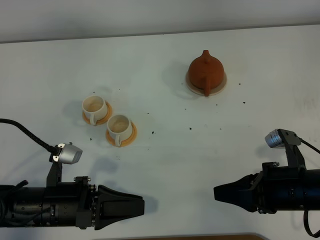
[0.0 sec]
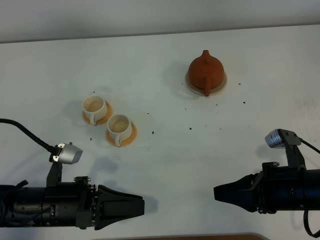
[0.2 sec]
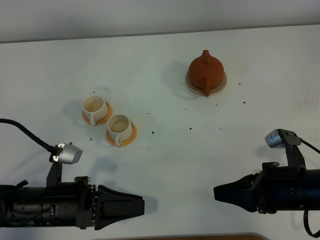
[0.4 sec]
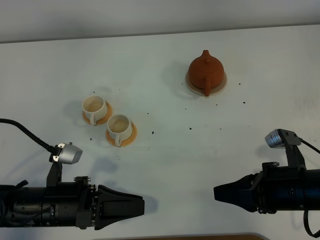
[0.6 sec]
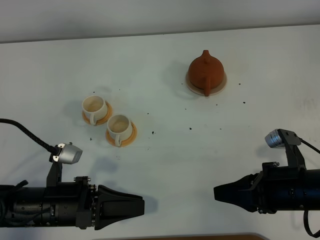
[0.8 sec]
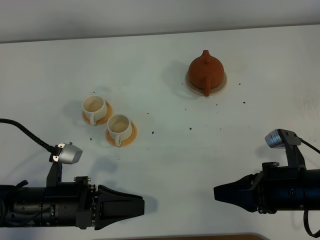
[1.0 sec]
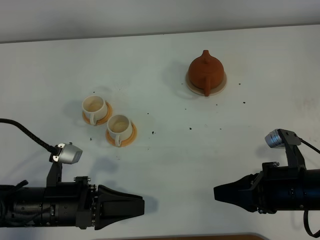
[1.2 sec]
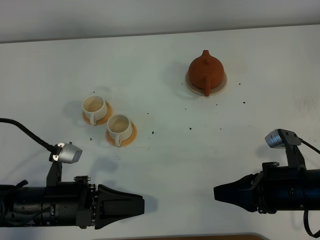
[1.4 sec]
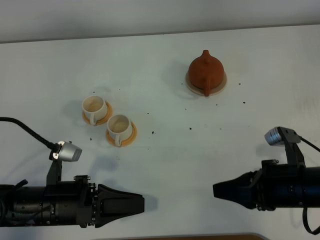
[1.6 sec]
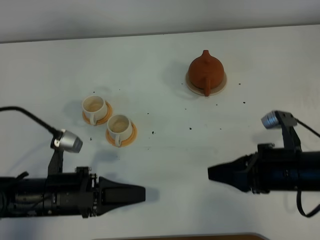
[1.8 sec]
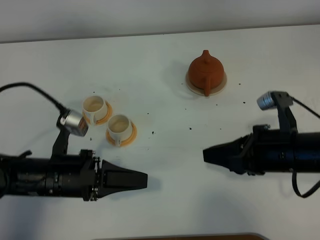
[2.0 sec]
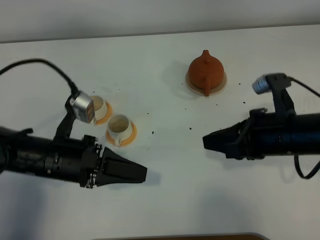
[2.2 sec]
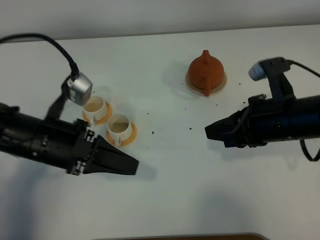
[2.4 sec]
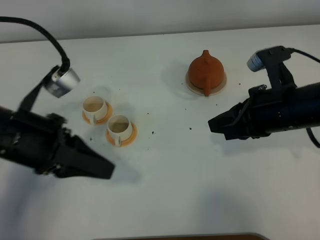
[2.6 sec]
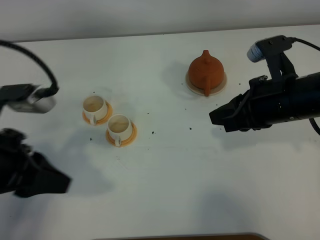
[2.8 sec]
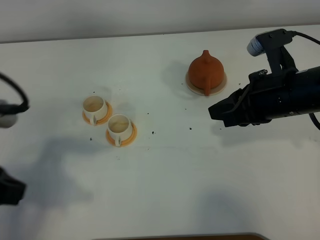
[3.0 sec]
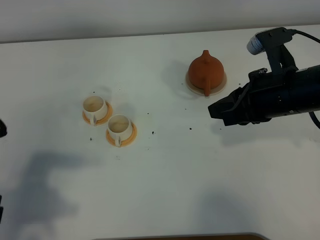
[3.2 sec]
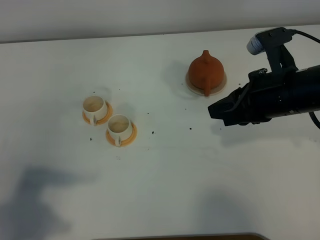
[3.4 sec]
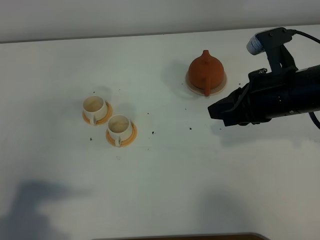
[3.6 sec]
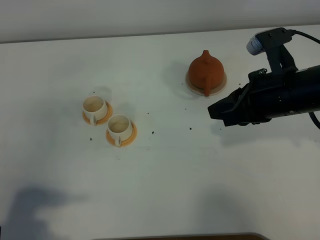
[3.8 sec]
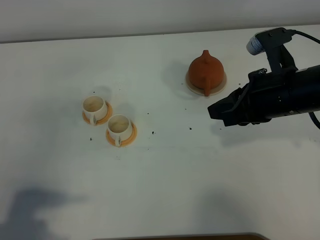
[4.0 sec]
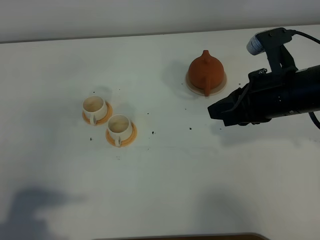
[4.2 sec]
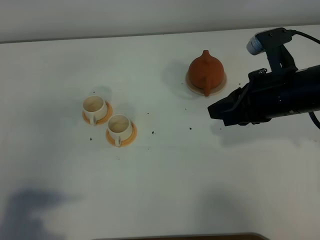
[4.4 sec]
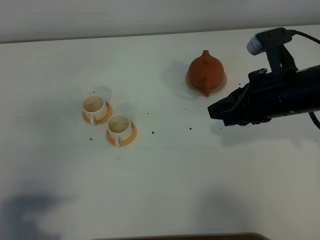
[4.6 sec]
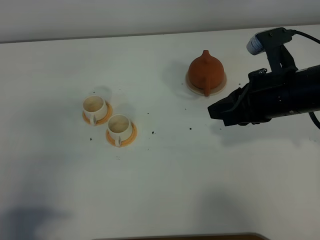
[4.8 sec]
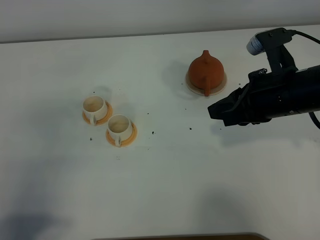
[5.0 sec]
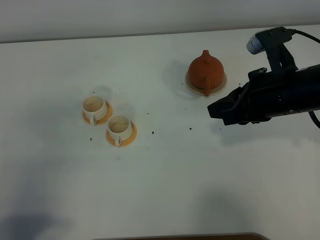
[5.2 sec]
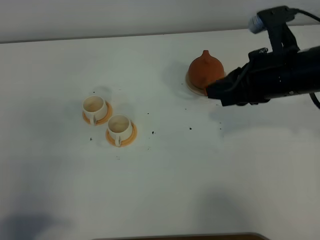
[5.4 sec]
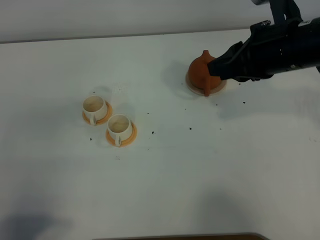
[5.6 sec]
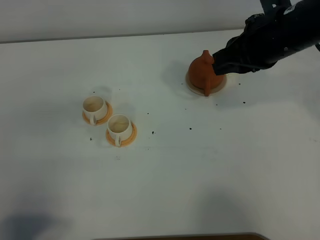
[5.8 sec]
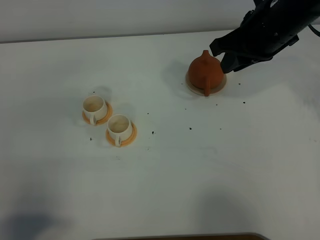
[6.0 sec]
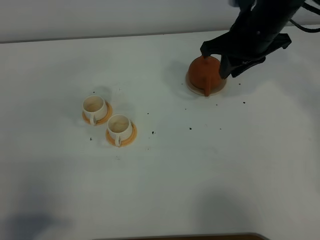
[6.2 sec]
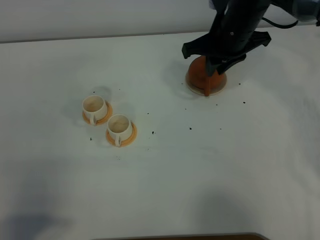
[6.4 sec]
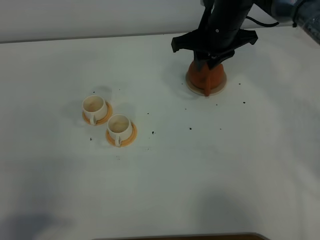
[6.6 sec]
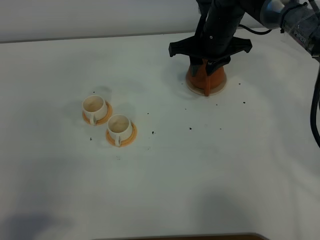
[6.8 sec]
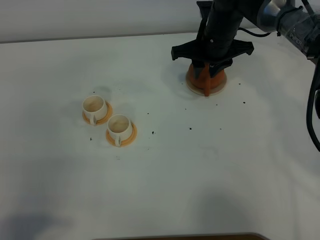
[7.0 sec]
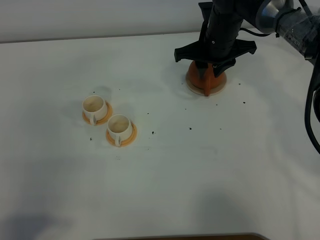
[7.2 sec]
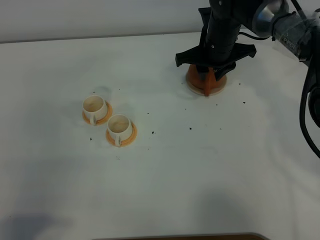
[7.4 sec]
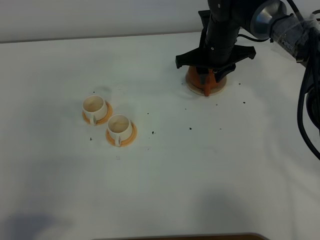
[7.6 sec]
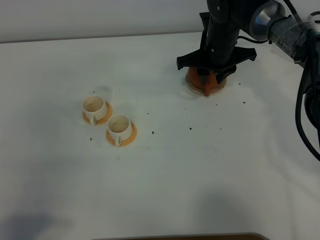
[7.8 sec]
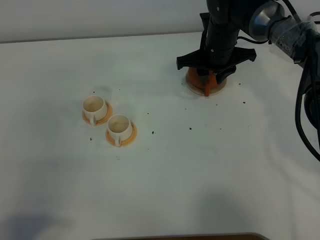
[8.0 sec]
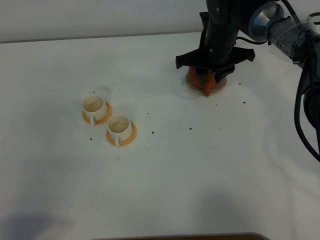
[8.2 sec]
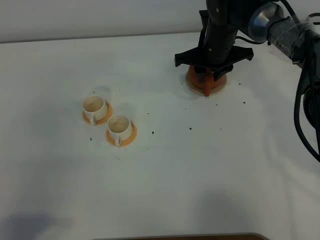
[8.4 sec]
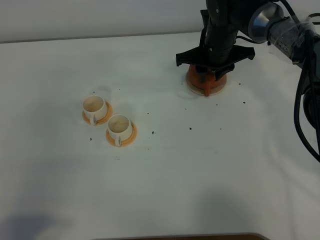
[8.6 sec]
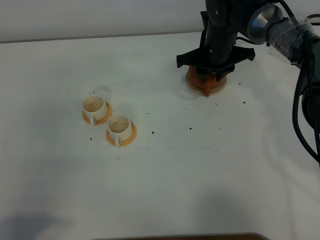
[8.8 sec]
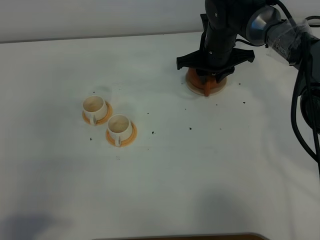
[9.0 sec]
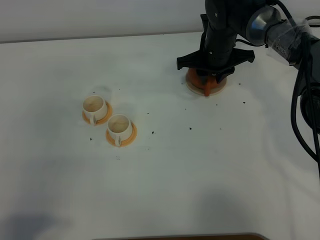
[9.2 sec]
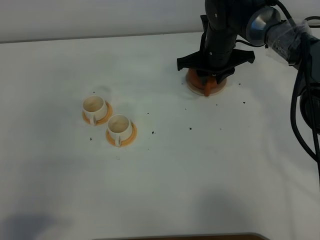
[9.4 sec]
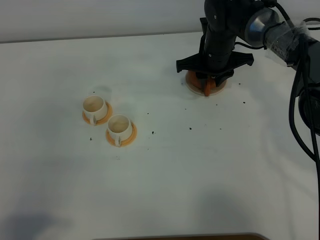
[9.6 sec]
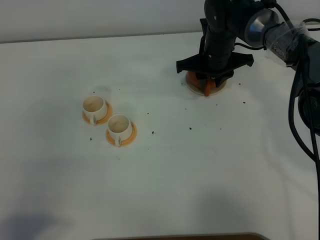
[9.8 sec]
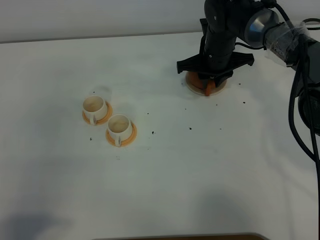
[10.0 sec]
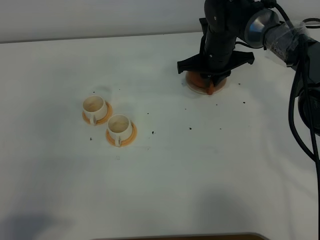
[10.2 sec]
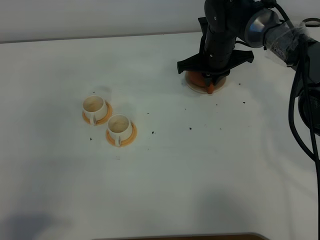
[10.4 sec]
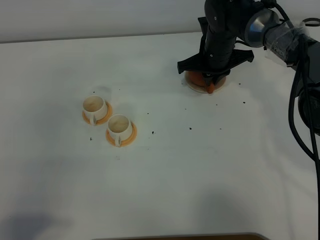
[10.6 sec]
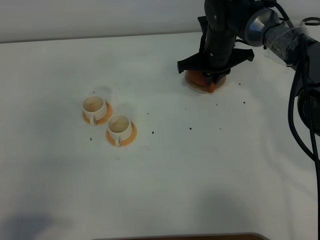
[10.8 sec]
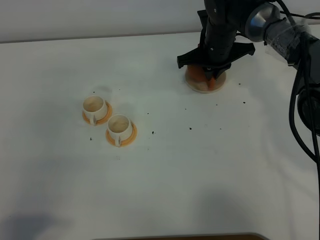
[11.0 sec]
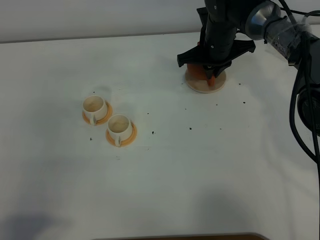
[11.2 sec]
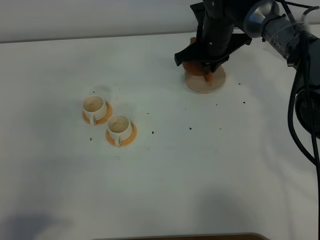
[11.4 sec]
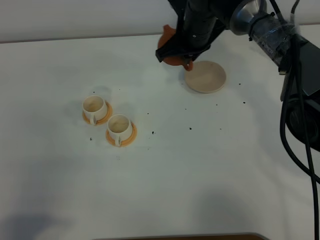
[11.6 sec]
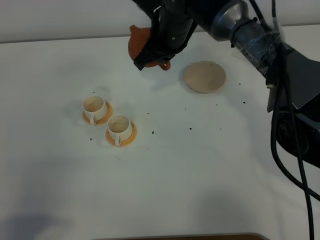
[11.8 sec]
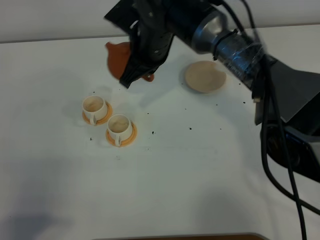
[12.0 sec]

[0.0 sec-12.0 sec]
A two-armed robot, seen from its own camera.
Task of the whole recording: grasp the brown teapot and pour the tea into the two white teacups one by one, put the brown teapot back in its original place.
Step, 0.0 sec to 11.6 sec: Pick up the teapot with the right gripper.
0.0 sec to 1.6 sec: Both grippers stay about where they are.
1.6 sec to 3.0 sec: The left gripper moves upward, roughly 20 cm, while the right gripper travels upward and forward by about 15 cm.
3.0 sec to 4.4 sec: The left gripper heads backward and downward, covering approximately 10 cm.
4.4 sec to 6.0 sec: The right gripper travels forward by about 10 cm.
6.0 sec to 7.6 sec: The right gripper heads downward, to the left and forward, covering approximately 15 cm, and opens up.
7.6 sec to 9.0 sec: The grippers stay close to where they were, moving slightly.
9.0 sec to 10.4 sec: The right gripper closes up.
10.4 sec to 12.0 sec: The right gripper goes about 15 cm to the left, backward and upward.

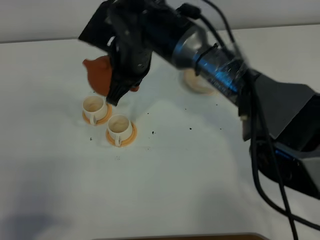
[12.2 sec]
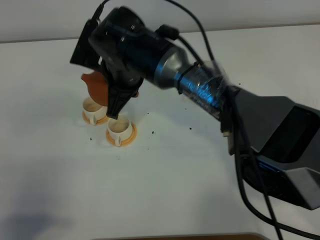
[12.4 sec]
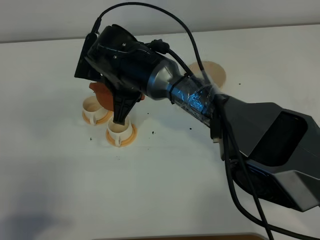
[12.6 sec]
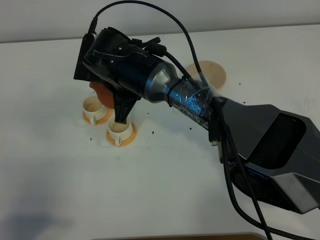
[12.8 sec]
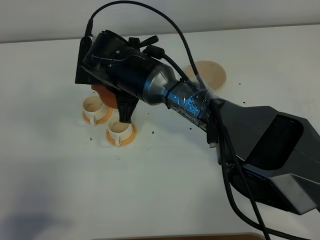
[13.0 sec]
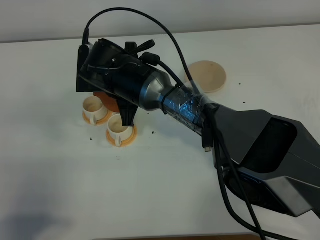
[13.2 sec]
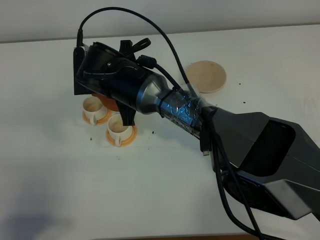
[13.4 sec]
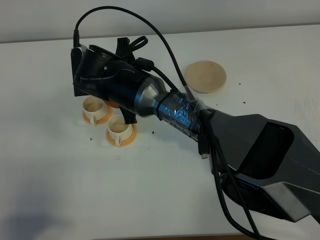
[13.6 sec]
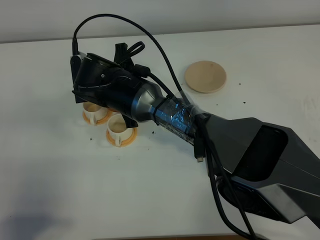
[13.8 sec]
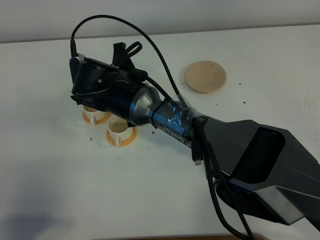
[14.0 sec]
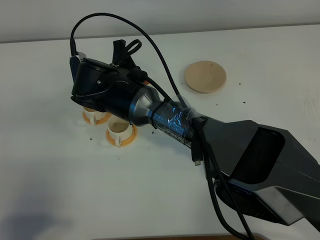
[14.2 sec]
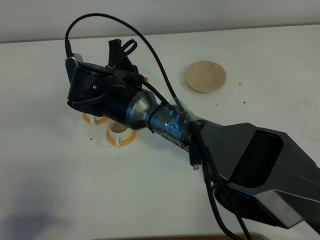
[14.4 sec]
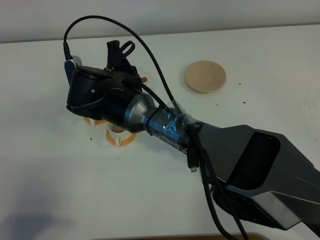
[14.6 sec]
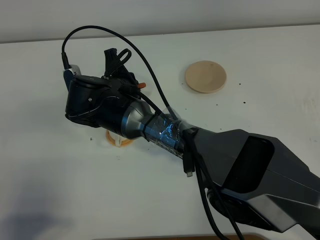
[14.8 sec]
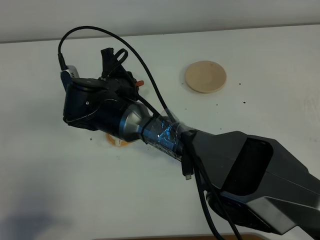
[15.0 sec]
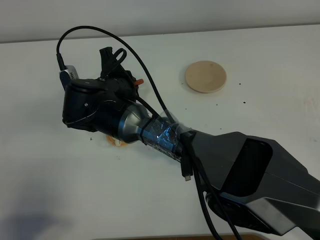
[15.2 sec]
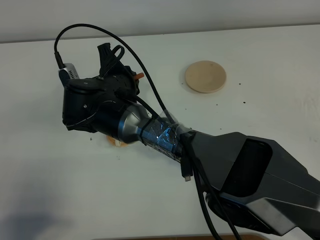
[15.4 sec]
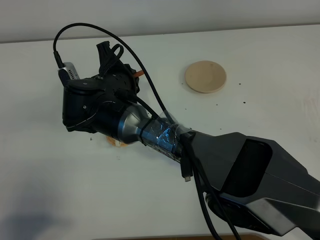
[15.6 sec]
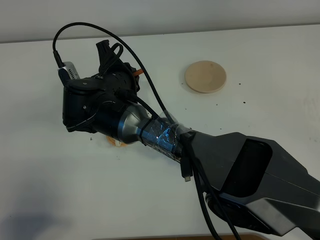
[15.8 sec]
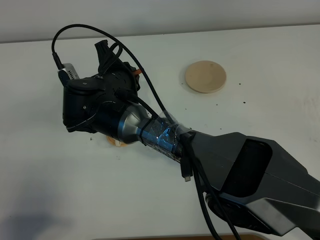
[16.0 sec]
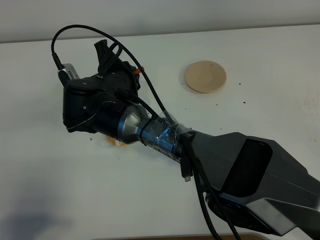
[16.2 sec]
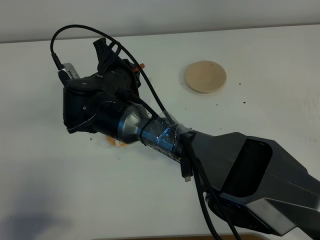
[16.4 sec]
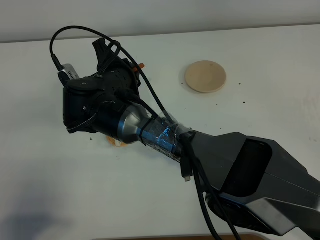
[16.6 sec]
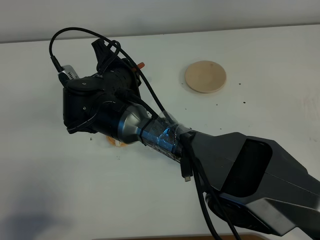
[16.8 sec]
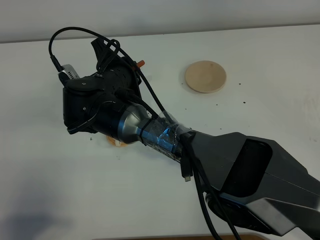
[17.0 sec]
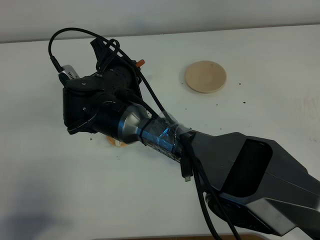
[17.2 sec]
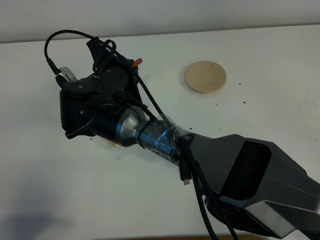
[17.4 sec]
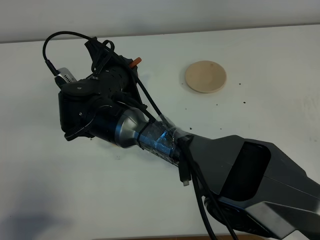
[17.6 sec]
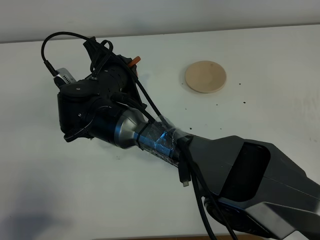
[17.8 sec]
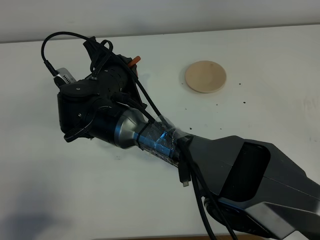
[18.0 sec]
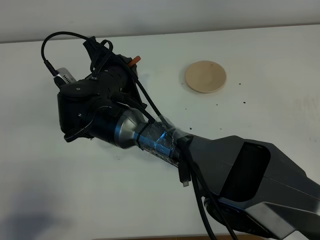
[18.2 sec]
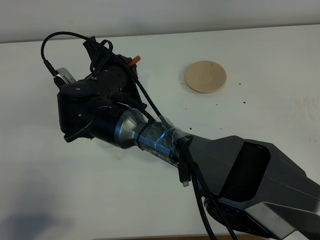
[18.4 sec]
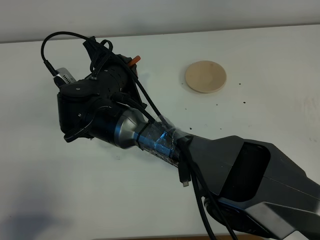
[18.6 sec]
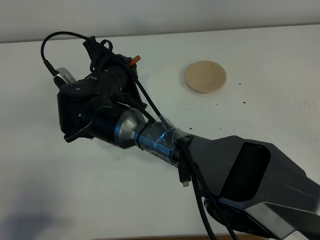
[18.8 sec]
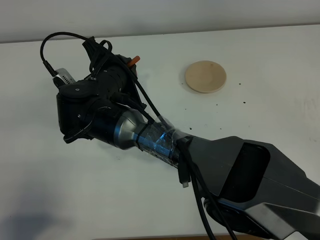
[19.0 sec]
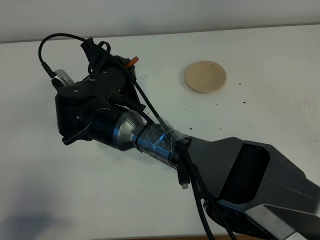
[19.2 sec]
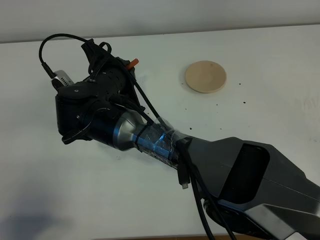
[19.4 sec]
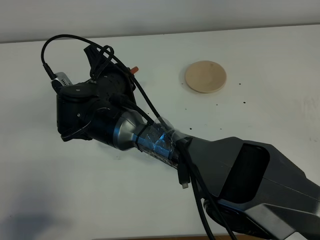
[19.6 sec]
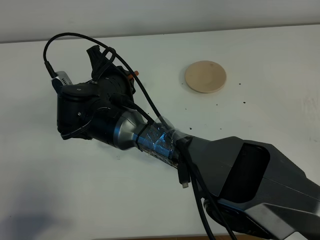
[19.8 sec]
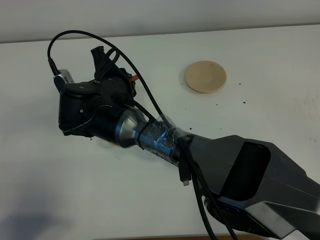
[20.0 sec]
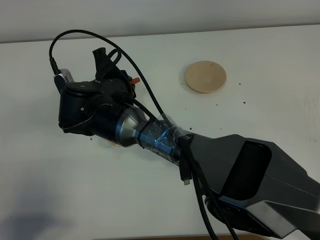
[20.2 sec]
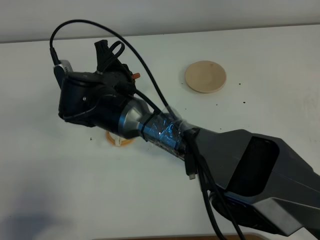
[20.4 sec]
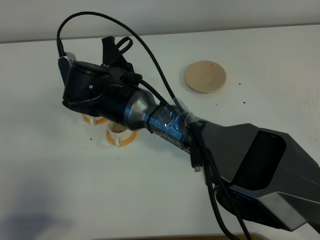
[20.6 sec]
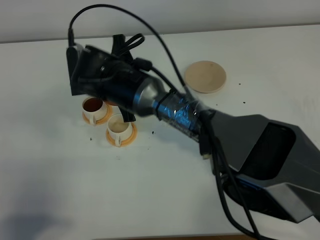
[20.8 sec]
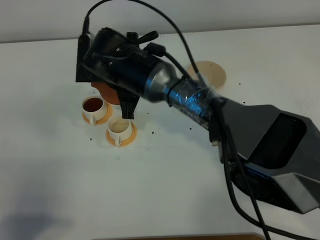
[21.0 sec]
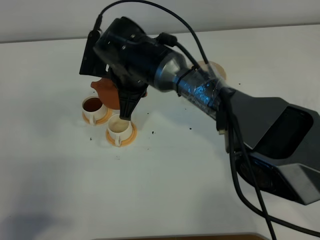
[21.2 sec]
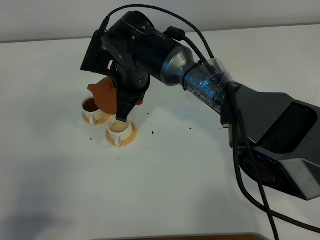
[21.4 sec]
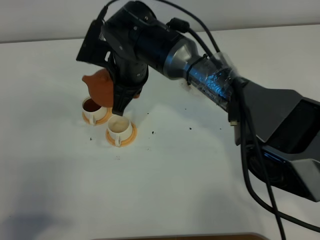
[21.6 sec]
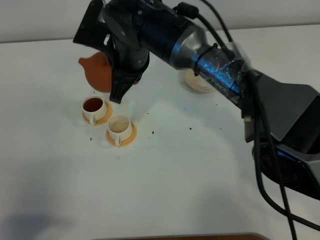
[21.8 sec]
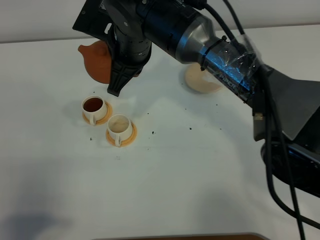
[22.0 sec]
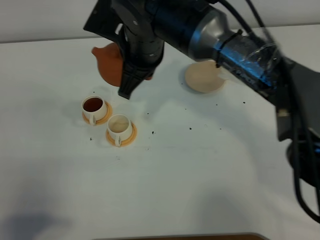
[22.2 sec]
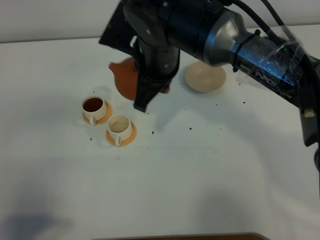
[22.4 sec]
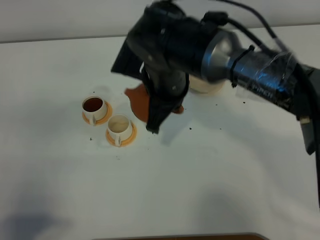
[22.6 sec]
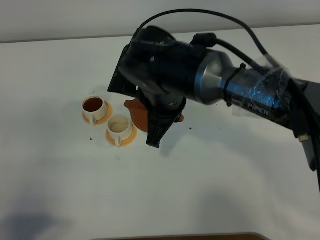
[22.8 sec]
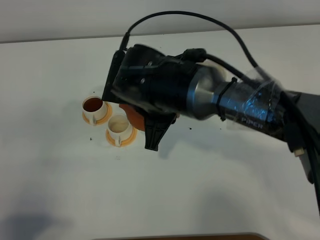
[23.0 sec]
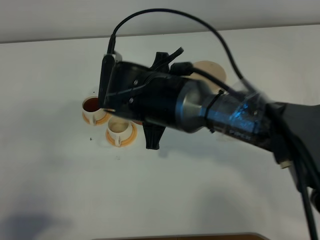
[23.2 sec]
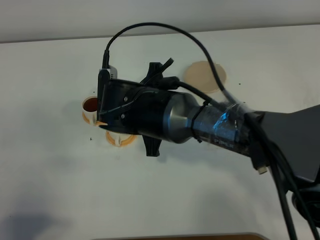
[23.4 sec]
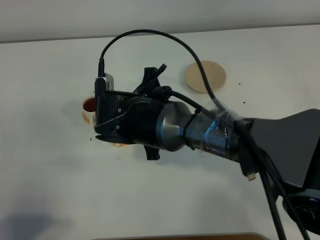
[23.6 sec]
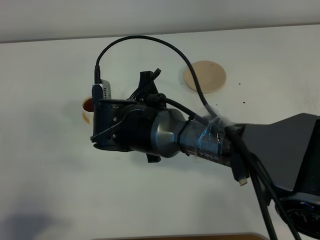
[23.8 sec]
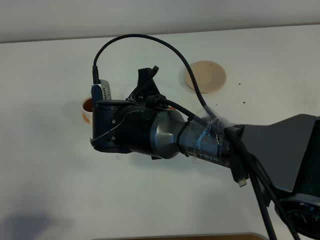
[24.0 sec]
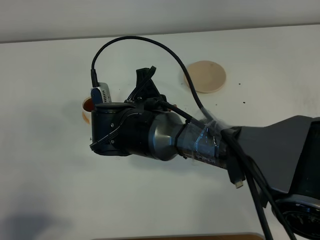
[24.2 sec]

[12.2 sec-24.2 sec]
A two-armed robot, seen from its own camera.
Task of the whole recording: grasp the brown teapot and pour the tea into the two white teacups one by one, put the brown teapot back in its original place.
12.2 sec to 13.8 sec: The right gripper is displaced downward by some 5 cm.
15.2 sec to 18.2 sec: The grippers make only small movements.
18.2 sec to 19.8 sec: The grippers make only small movements.
19.8 sec to 21.2 sec: The right gripper heads forward, covering some 5 cm.
21.2 sec to 22.6 sec: The right gripper shifts approximately 5 cm to the right.
22.6 sec to 24.2 sec: The right gripper moves downward, approximately 5 cm.
